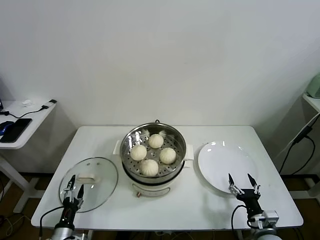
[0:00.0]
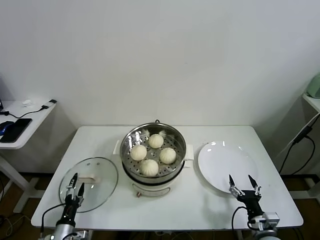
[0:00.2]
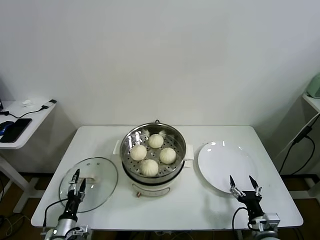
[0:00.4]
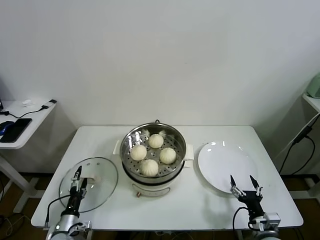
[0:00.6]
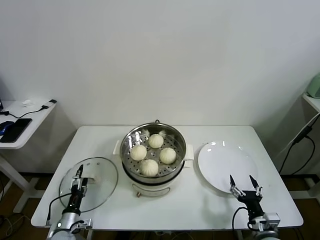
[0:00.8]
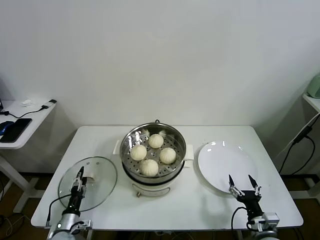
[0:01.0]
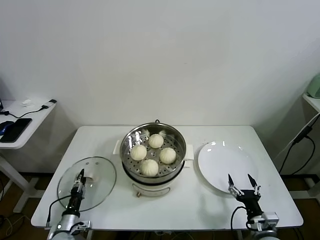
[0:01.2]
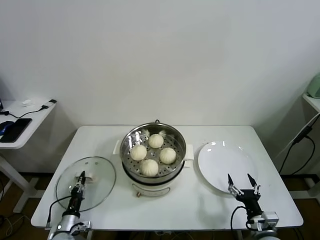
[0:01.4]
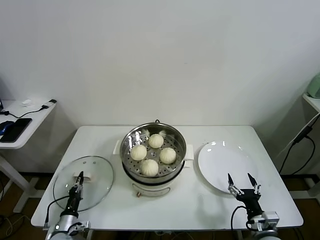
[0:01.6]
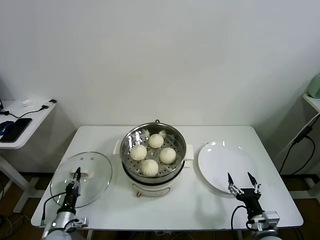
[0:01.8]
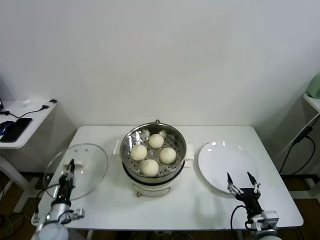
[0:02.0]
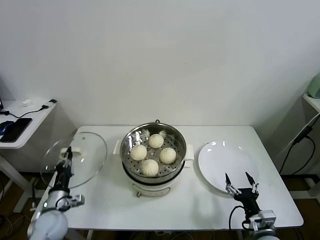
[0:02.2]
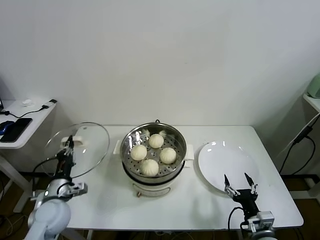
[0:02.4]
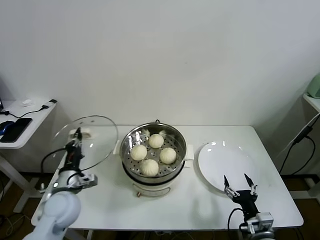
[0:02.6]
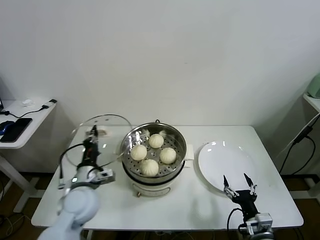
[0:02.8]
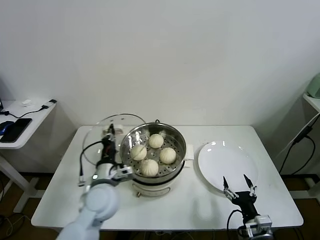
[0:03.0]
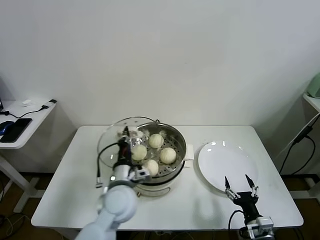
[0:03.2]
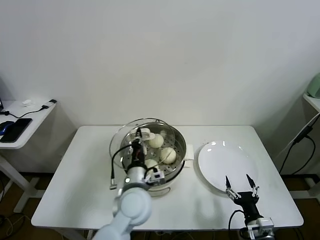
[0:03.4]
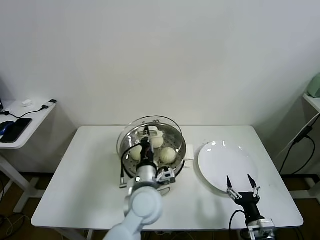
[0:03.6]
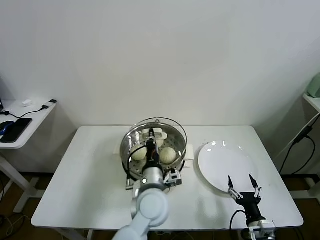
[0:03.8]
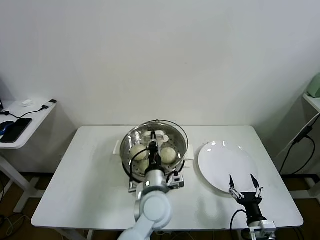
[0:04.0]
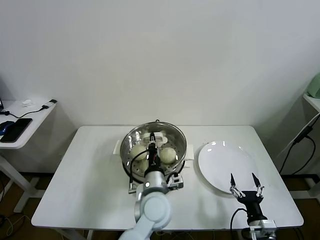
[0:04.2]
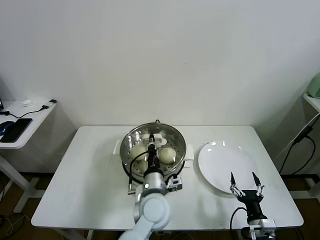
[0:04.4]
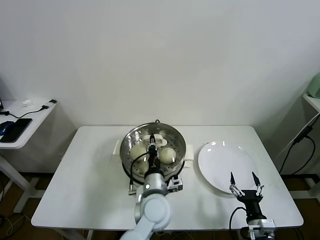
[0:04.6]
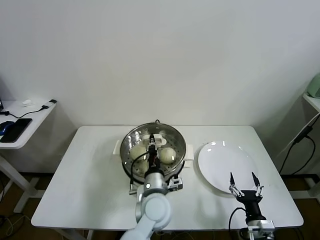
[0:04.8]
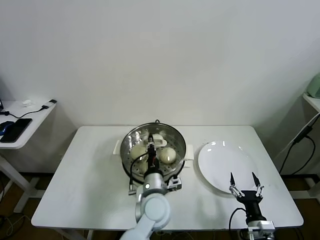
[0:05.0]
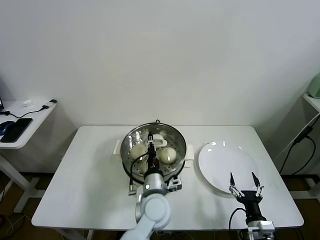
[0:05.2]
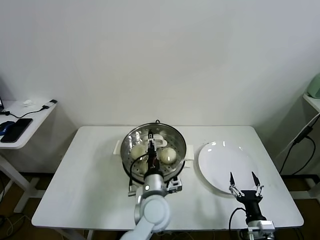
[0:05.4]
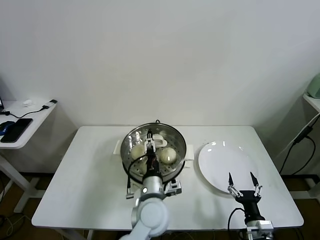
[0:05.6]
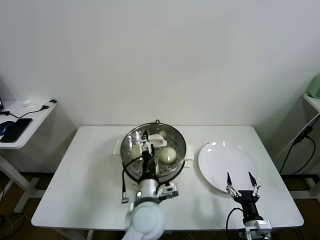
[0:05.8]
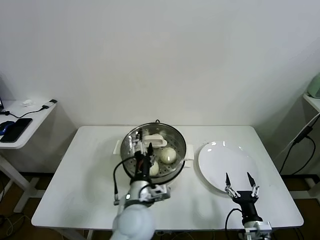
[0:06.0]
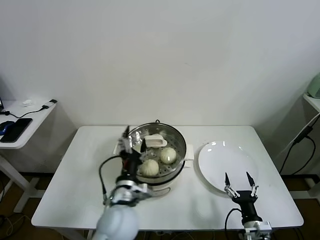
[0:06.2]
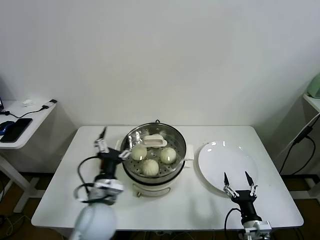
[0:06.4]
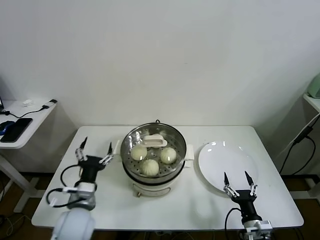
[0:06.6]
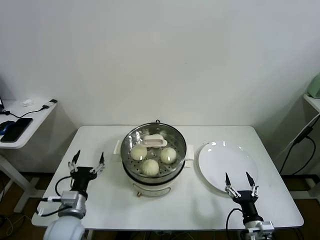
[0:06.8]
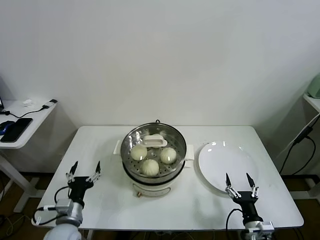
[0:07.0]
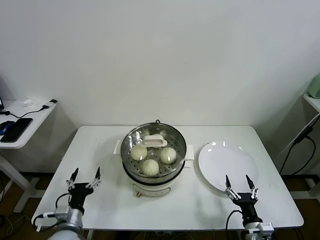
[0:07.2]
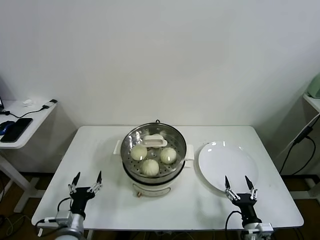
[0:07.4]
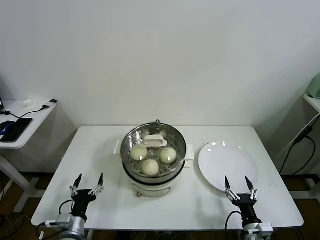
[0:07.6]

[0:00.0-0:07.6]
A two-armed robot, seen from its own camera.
Task of the whole recording: take steamed baozi put them in steamer.
Step, 1.6 to 5.0 s: Place the pot lid on the steamer with left gripper.
0.0 to 1.6 s: The left gripper is displaced forward by some 5 cm, and closes its fingers.
1.6 to 3.0 s: The left gripper heads upward and to the right, covering roughly 30 cm.
3.0 to 4.6 s: The left gripper is displaced to the right by some 15 cm.
4.6 to 6.0 s: The left gripper ends up roughly 5 cm from where it was, and opens its fingers.
6.0 to 7.6 s: The left gripper goes about 25 cm to the left and downward.

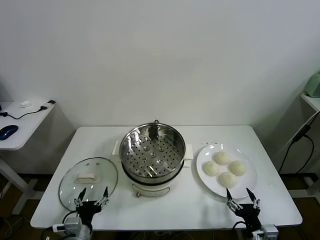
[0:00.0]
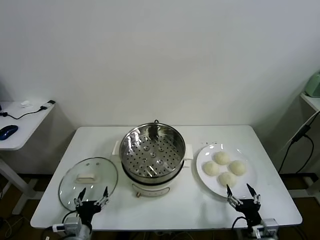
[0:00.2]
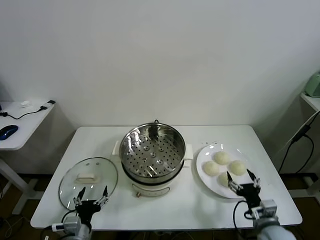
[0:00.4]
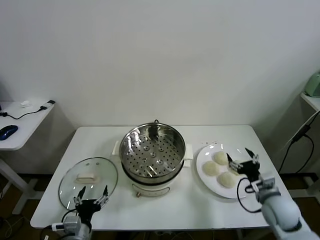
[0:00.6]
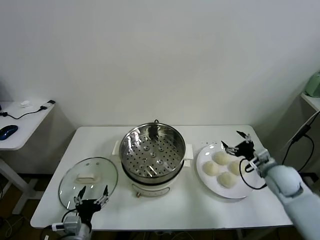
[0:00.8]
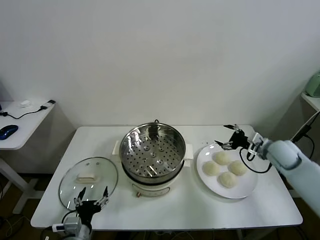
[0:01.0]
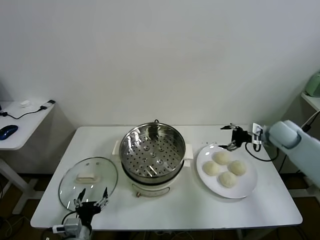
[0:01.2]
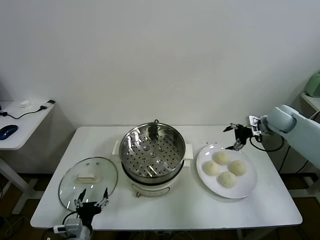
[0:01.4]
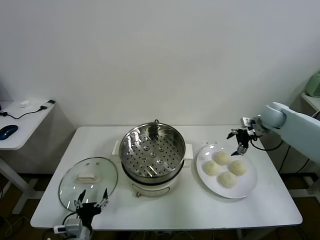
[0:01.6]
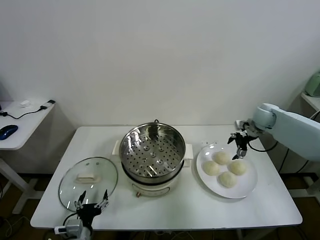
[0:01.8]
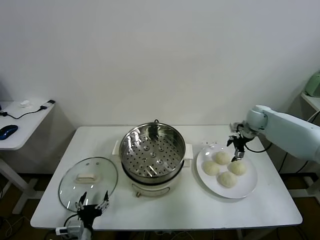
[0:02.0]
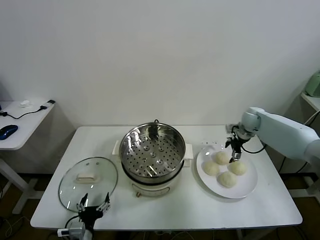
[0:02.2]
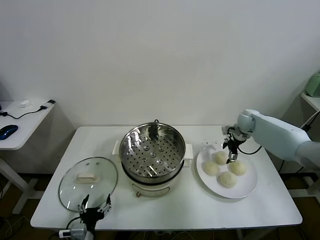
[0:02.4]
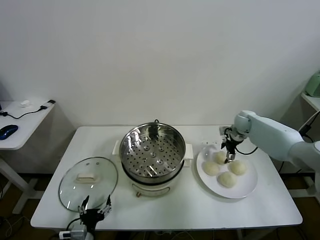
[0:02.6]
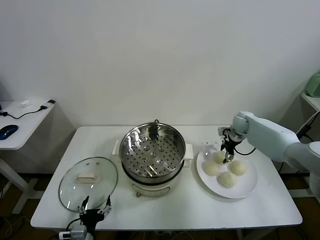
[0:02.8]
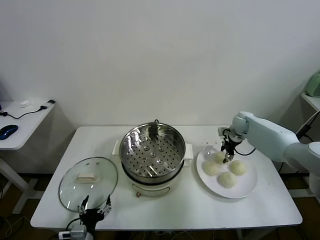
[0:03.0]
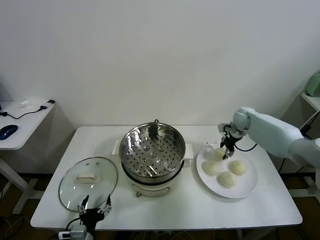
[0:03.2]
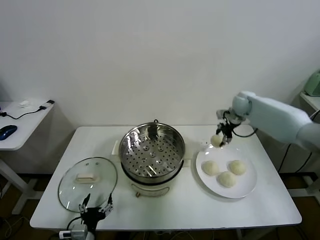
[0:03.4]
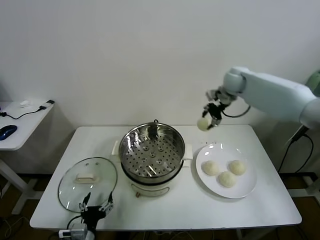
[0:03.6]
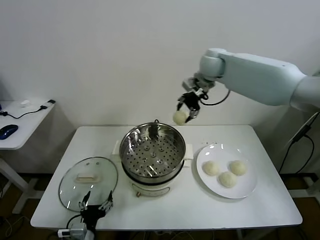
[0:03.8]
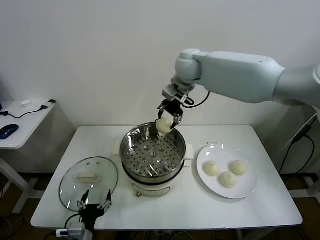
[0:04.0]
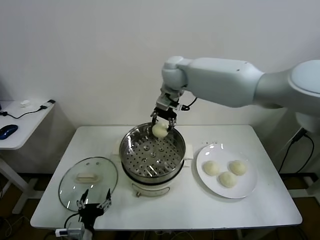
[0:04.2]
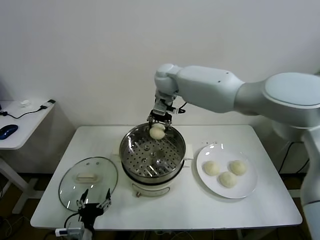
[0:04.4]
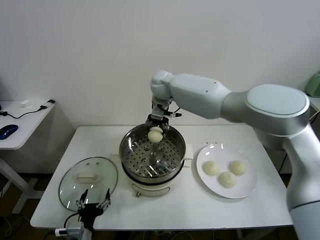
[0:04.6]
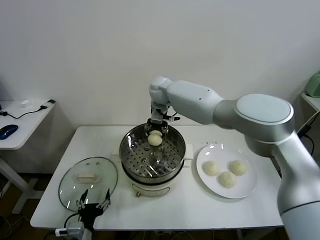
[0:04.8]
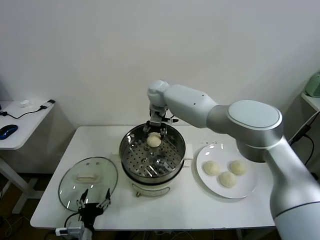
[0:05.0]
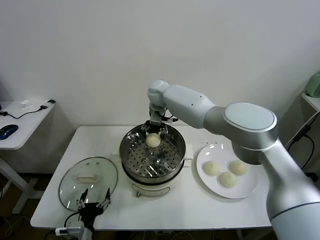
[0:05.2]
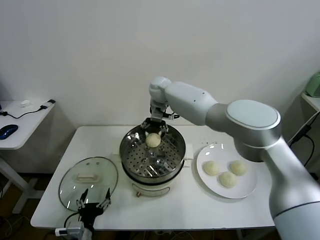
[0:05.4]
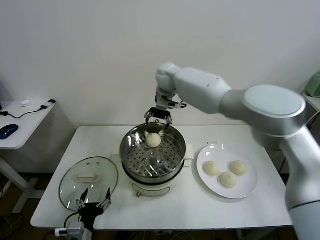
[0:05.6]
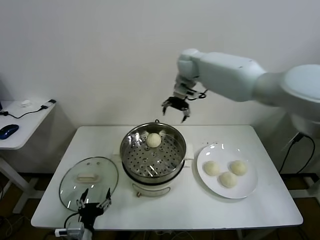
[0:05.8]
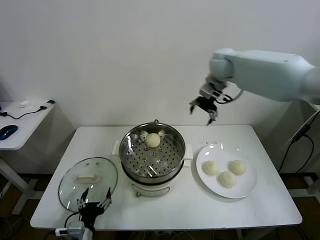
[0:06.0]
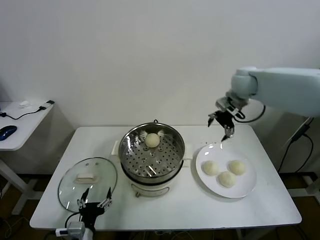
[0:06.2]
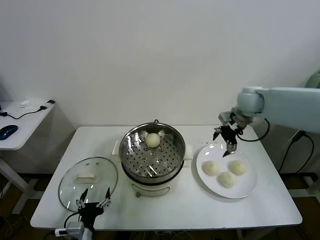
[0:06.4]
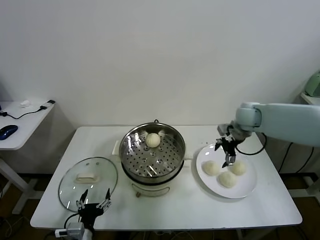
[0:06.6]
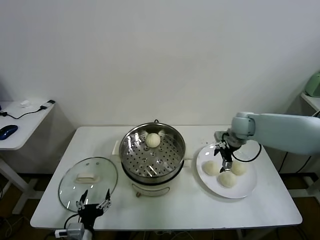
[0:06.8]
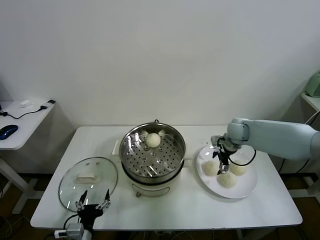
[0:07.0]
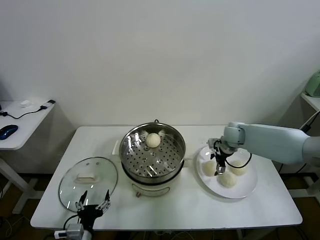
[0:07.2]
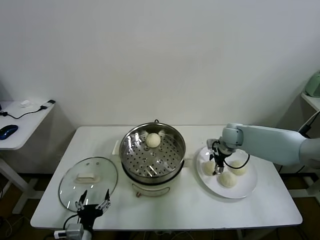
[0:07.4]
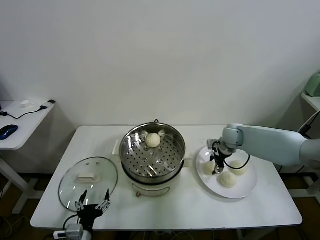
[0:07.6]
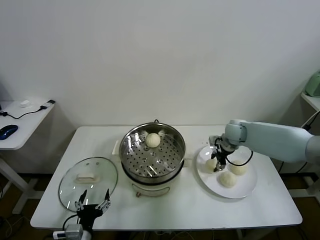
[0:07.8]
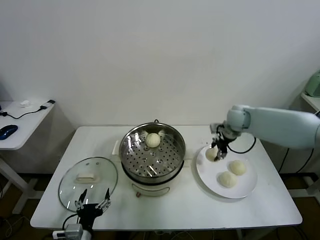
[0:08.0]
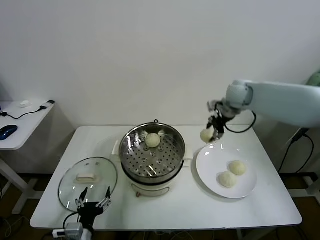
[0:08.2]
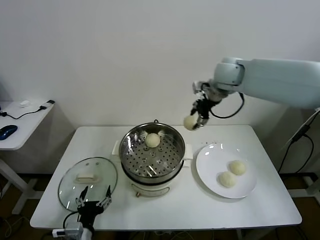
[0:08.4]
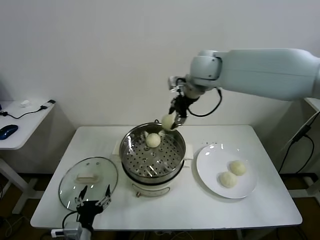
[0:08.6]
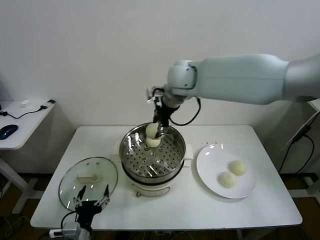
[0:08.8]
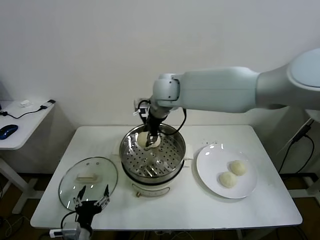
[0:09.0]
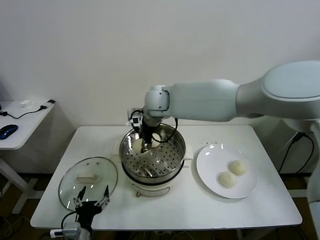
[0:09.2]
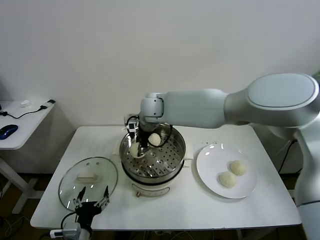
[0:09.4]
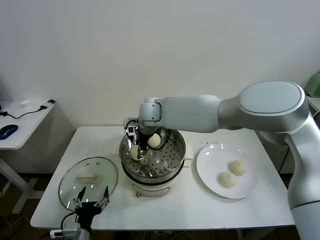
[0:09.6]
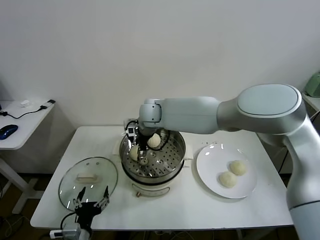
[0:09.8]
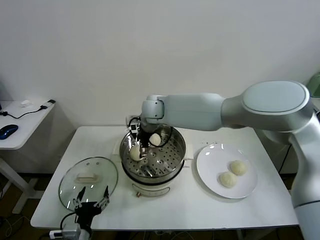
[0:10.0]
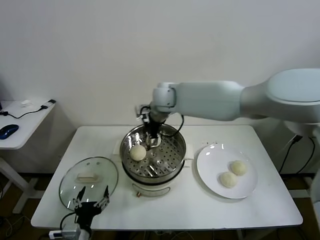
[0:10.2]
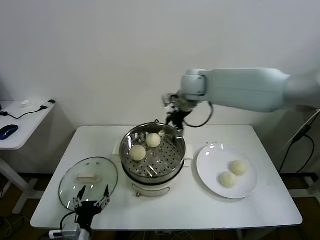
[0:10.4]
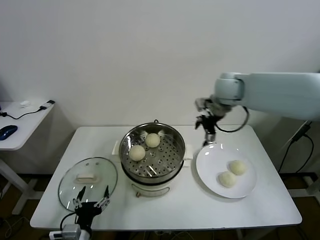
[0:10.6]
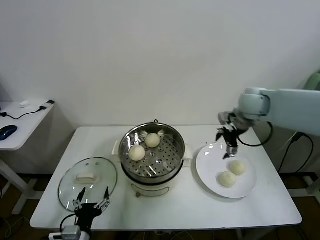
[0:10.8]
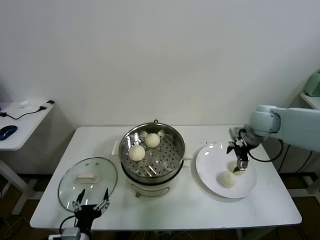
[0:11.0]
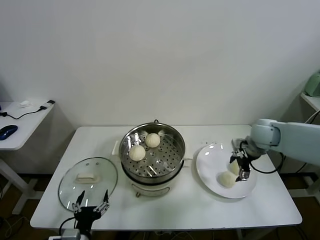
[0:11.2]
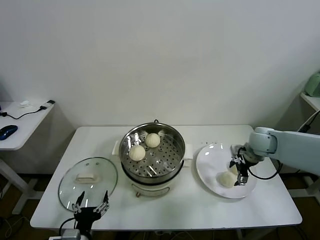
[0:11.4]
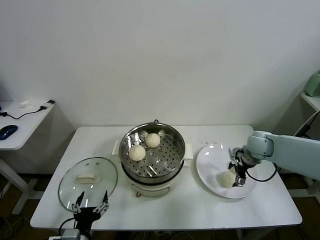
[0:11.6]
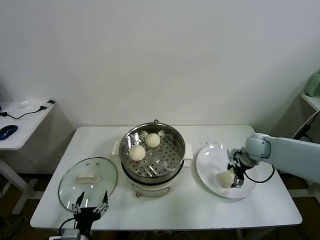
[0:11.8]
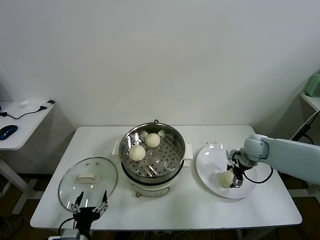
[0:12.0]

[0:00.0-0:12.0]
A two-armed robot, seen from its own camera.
Task of the whole recording: take steamed baozi put them in steamer.
Step, 0.0 to 3.0 s: Grasp the baozi in the plate with right gripper.
Step, 3.2 to 5.4 s: Place the baozi on the steamer with right gripper.
Step, 5.6 to 7.4 s: Grasp the baozi in the plate with right gripper.
Step, 7.6 to 10.0 s: Place the baozi on the steamer with right gripper.
1.6 to 3.0 s: The right gripper goes some 10 cm downward and to the left, and closes up.
3.0 to 4.4 s: The right gripper shifts approximately 40 cm to the left and upward.
4.4 to 6.0 s: The right gripper heads to the right, covering approximately 25 cm, and opens.
6.0 to 7.6 s: The right gripper is displaced downward by some 25 cm, and closes.
7.6 to 9.0 s: The right gripper moves to the left and upward, about 35 cm.
9.0 to 10.4 s: The right gripper is displaced to the right by about 15 cm, and opens.
10.4 to 12.0 s: The right gripper is displaced downward and to the right by roughly 30 cm.

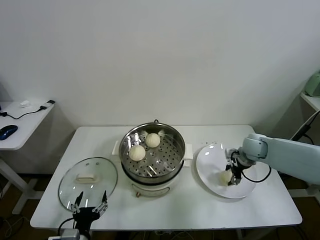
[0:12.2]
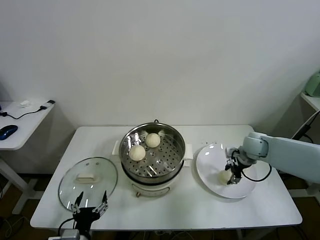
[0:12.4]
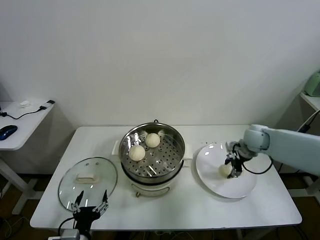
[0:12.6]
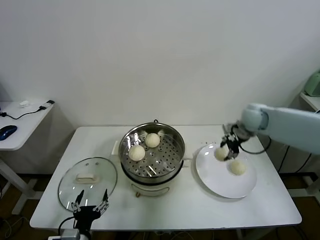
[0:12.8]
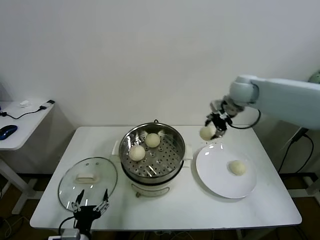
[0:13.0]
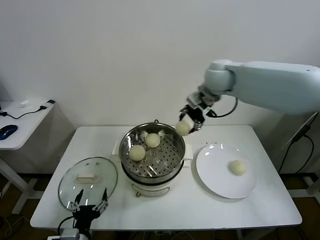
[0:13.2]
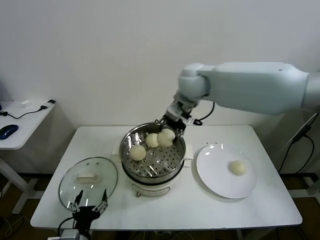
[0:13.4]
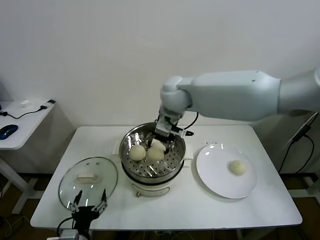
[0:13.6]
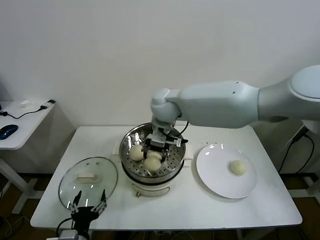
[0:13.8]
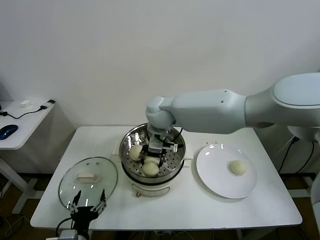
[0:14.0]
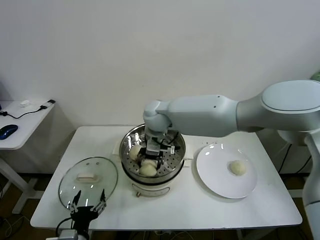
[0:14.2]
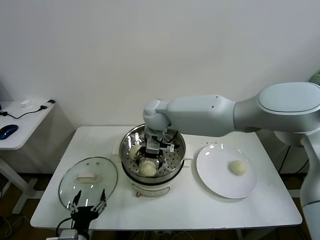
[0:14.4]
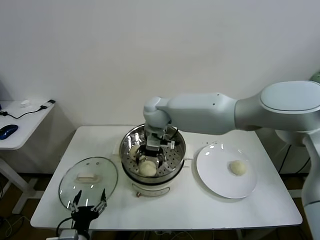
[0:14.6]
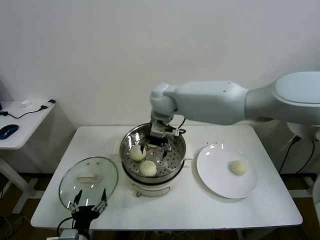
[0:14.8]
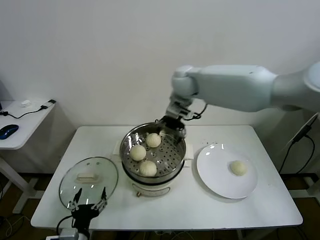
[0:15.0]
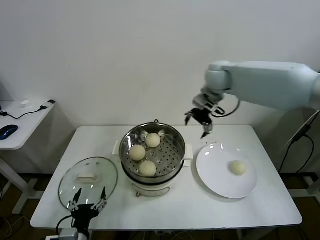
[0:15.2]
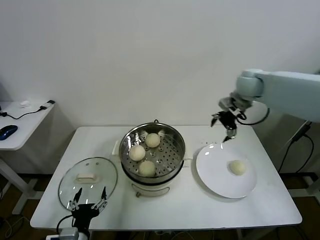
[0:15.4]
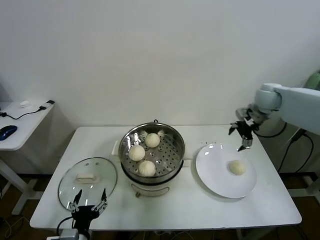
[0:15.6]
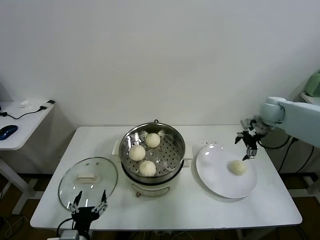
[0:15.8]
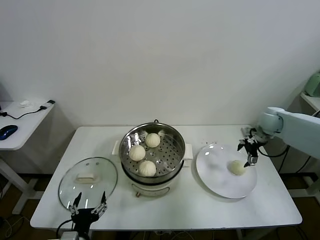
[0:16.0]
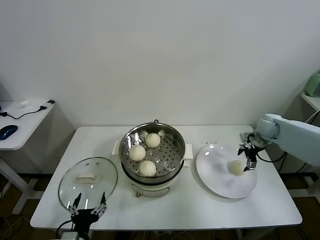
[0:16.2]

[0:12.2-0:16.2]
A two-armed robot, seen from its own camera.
Task of the whole recording: take steamed baozi put them in steamer.
Step, 12.4 to 14.4 s: Place the baozi on the steamer with right gripper.
12.2 to 13.6 s: The right gripper is displaced to the left and upward by about 40 cm.
13.6 to 14.8 s: The right gripper goes downward and returns, roughly 10 cm each way, and opens its fingers.
14.8 to 16.2 s: The right gripper moves to the right, some 40 cm.
